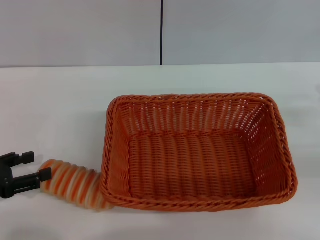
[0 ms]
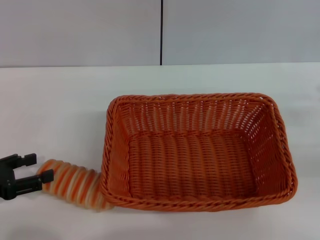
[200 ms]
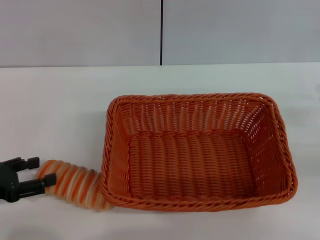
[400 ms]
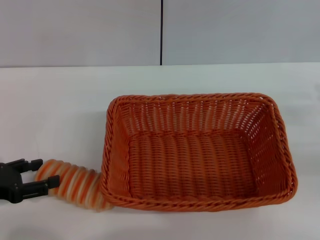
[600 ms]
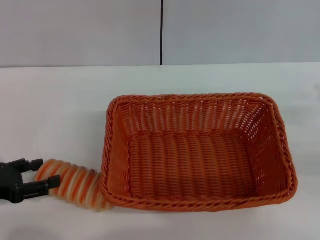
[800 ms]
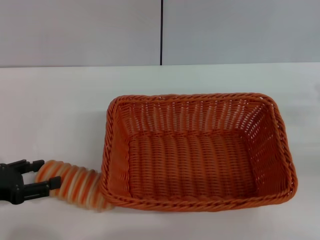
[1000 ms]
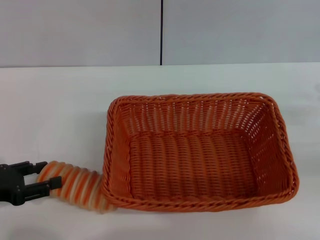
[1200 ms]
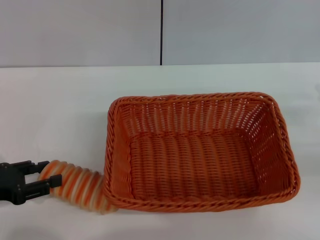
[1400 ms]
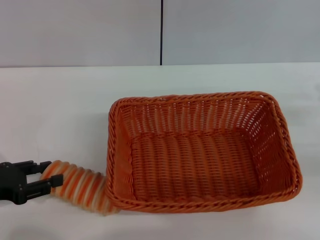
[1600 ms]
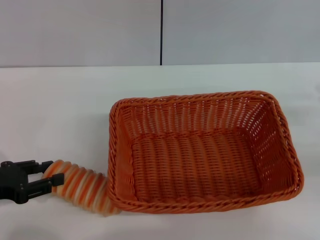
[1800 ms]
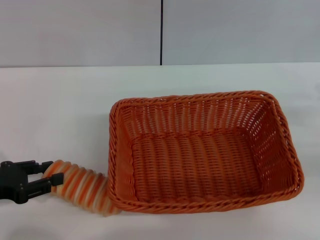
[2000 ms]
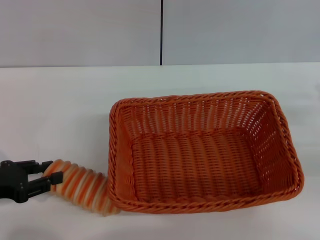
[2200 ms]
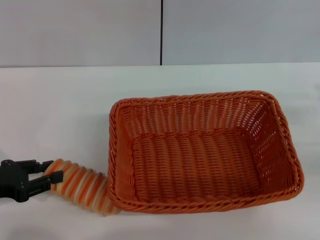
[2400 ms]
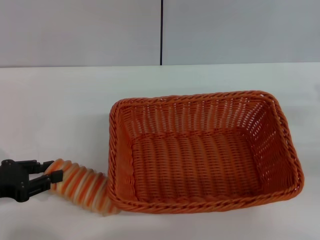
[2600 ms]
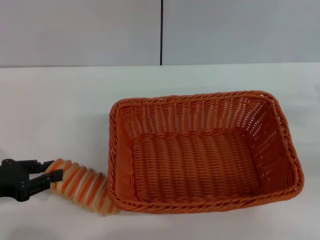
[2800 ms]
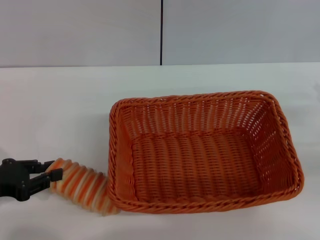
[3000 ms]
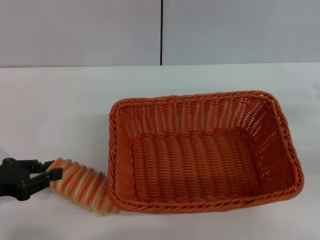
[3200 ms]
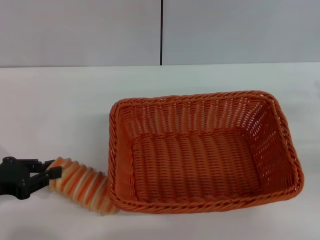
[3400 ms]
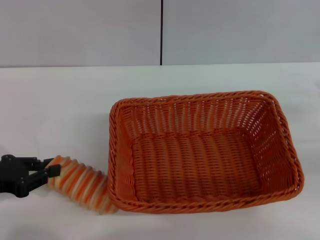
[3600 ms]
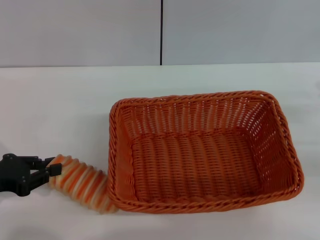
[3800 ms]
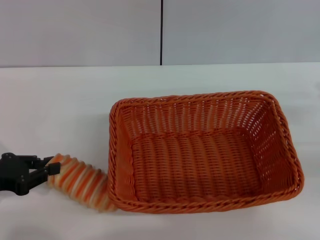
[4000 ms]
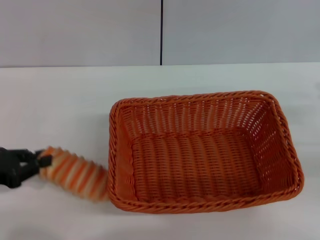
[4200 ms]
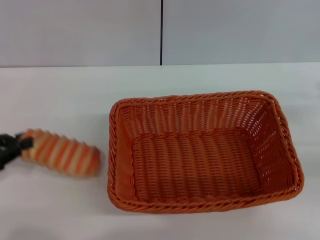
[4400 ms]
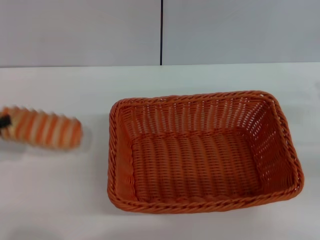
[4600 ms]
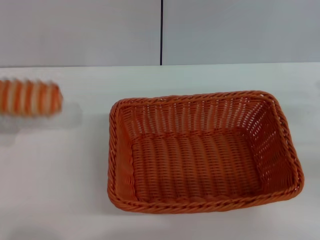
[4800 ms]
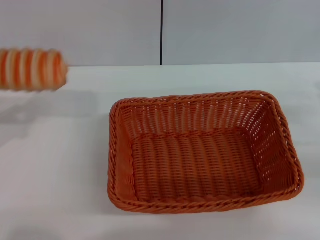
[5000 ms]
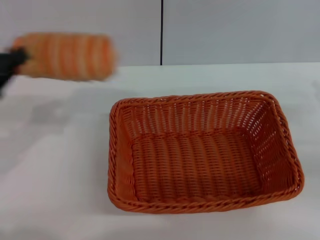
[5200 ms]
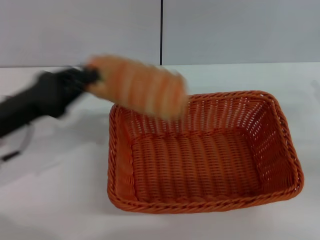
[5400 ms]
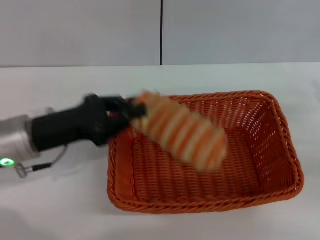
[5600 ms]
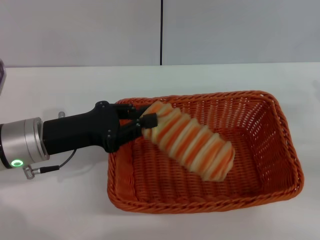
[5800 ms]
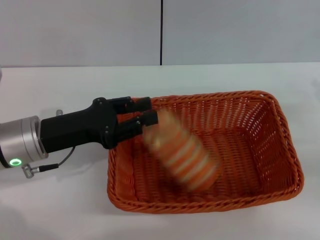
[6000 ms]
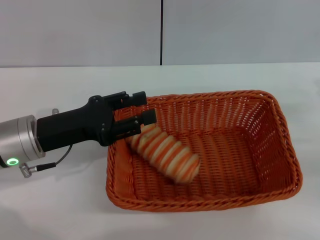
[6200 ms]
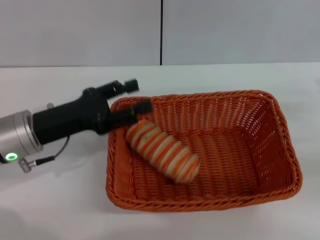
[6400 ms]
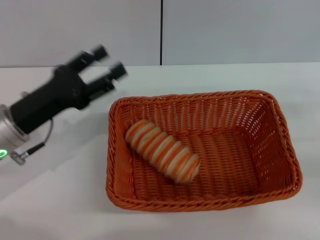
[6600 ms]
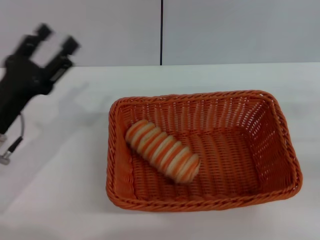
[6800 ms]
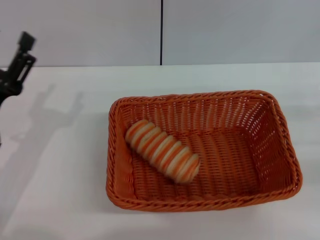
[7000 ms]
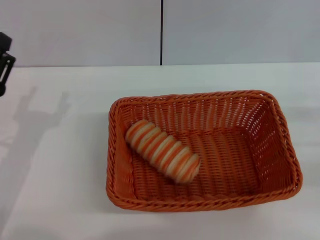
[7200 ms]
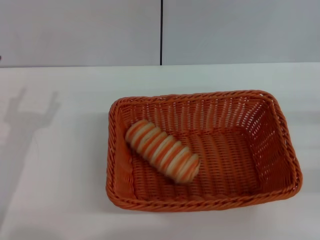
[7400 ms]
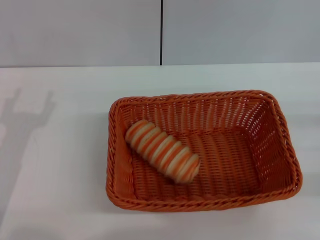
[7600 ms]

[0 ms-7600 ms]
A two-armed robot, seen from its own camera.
Step, 0 ms to 4400 ms: Pick up the long bread with the left gripper.
Step, 4800 ms to 6400 ms: Place the long bread into the light basket with the left gripper.
0 ms to 1600 ms: The grippers stay close to where they were, moving slightly.
1600 ms to 3000 ms: The left gripper closes its fingers.
3000 ms to 4600 ms: The left gripper changes place by some 5 cm.
4600 ms to 6000 ms: The left gripper heads to the right, covering some 15 cm.
6000 ms to 7600 ms: The left gripper goes approximately 10 cm backward and to the left, and opens up.
